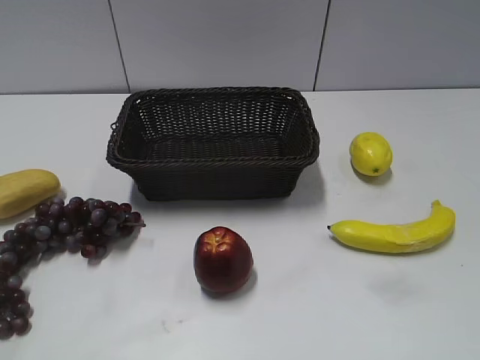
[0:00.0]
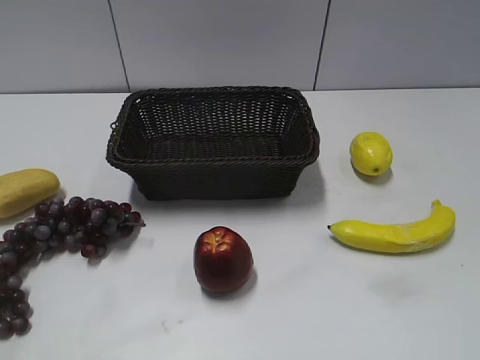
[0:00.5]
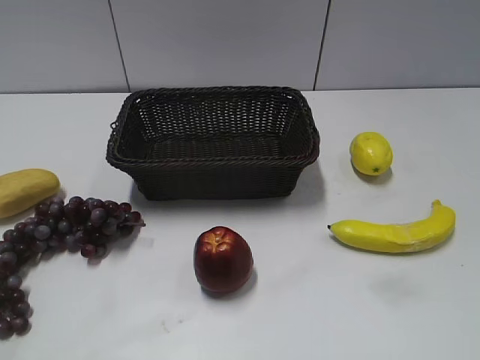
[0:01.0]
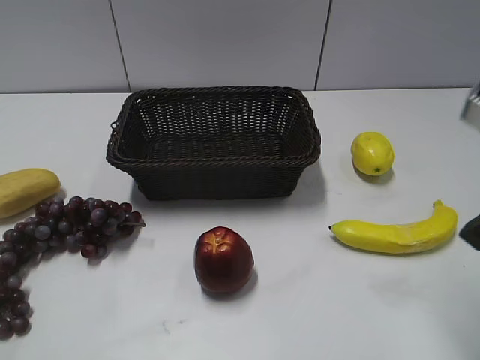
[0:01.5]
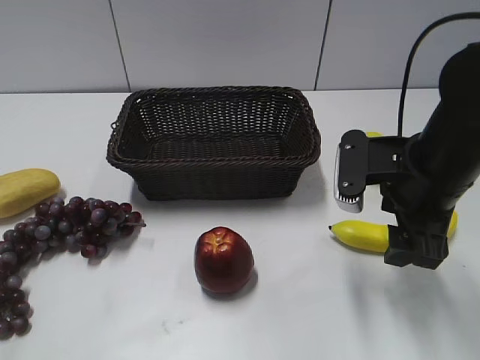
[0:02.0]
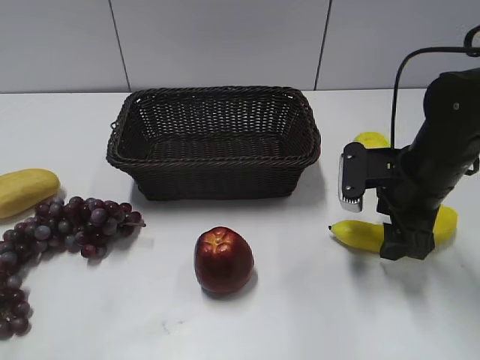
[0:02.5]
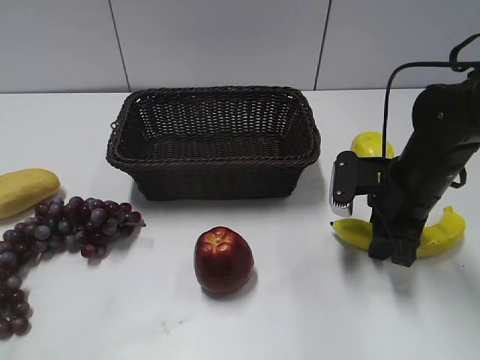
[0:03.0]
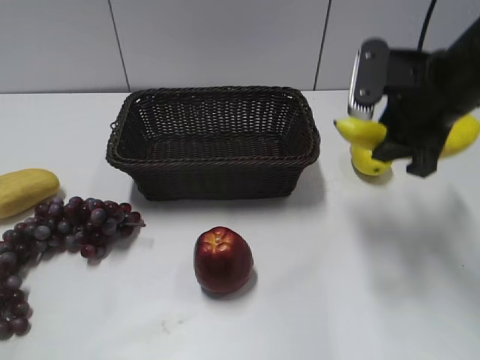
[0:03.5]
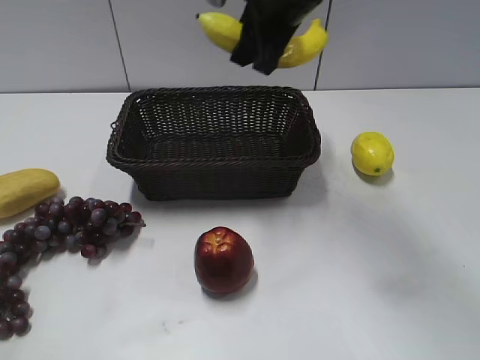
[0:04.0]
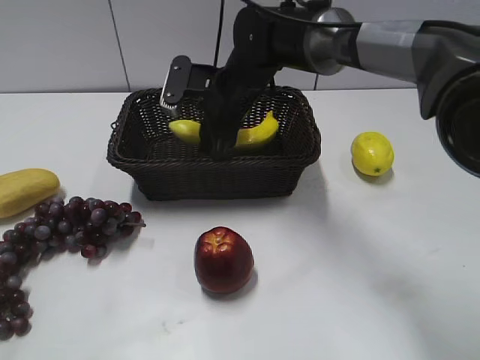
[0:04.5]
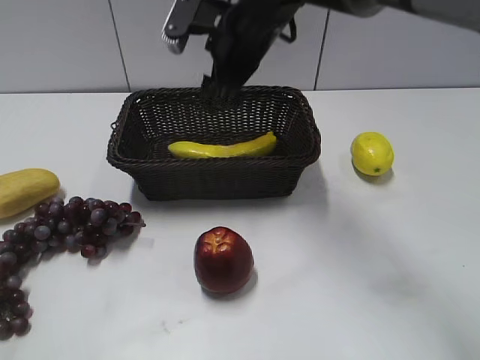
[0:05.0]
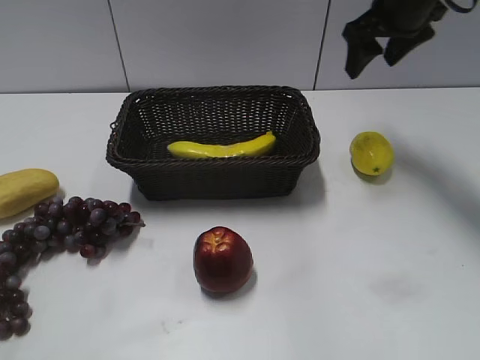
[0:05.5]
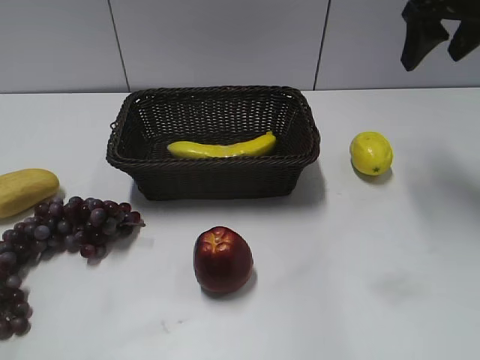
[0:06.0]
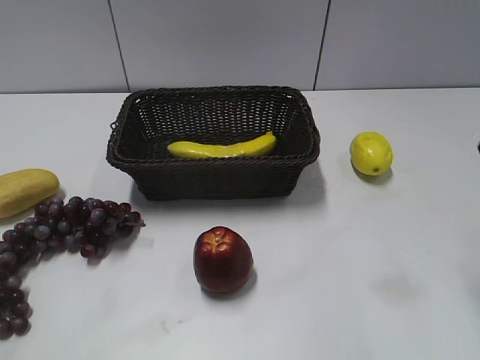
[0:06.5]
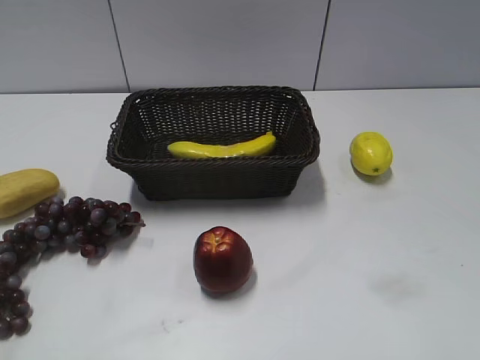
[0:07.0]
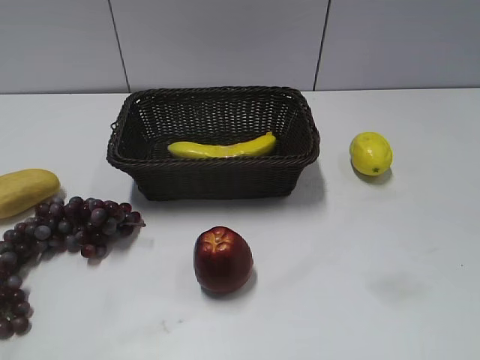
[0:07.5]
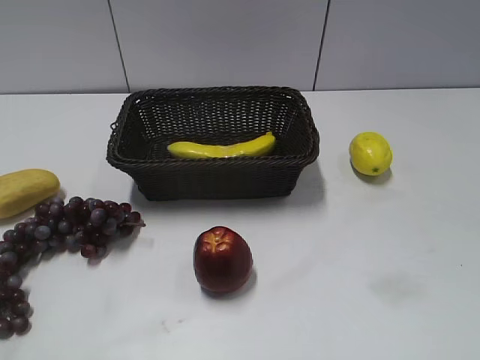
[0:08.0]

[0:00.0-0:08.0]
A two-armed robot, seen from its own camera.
Step, 0:01.5 to 0:02.5: Grasp the banana with right gripper.
Step, 0:03.0 to 0:04.5: Place the banana in the basket with right gripper.
0:02.0 to 0:04.0: The right gripper heads to the left, forward and upward, covering about 20 cm, and closes its fingers.
0:04.0 to 0:06.0: The right gripper shifts approximately 20 cm to the right, and opens its fingers.
0:06.0 to 0:08.0: The right gripper shifts some 40 cm backward.

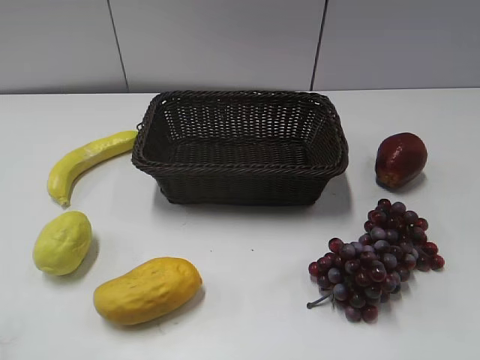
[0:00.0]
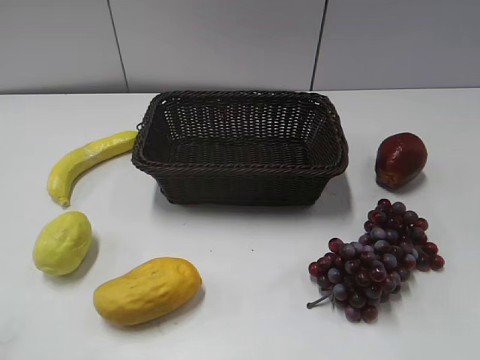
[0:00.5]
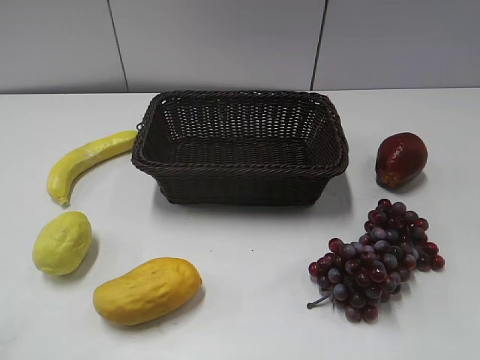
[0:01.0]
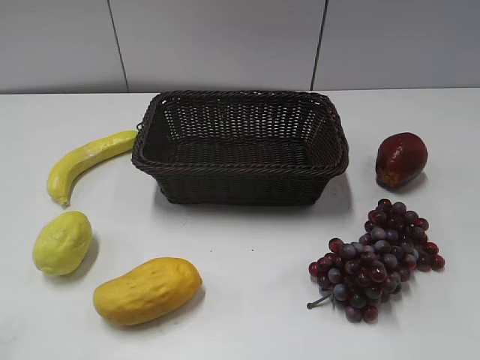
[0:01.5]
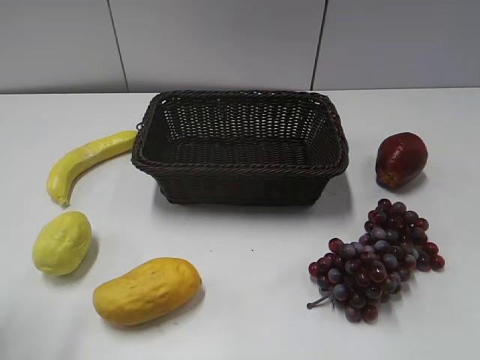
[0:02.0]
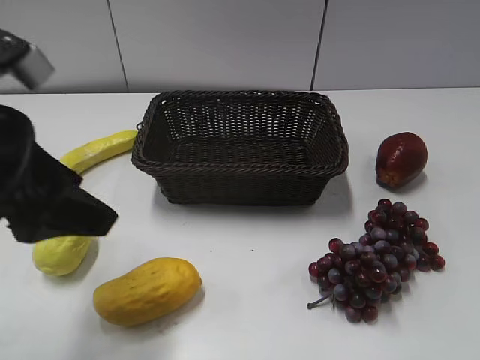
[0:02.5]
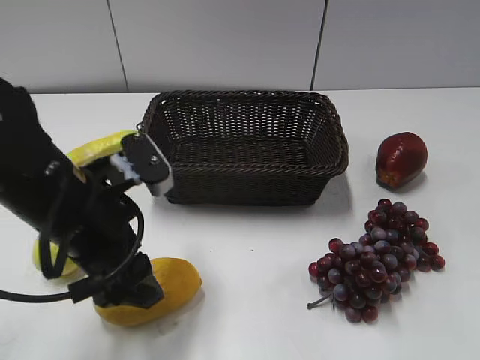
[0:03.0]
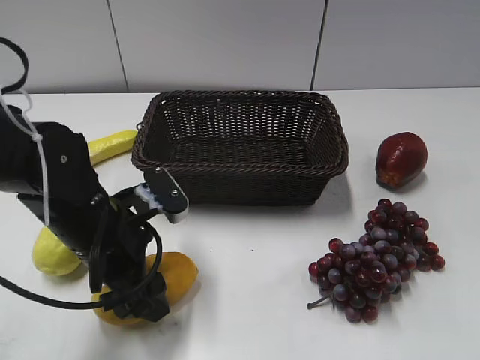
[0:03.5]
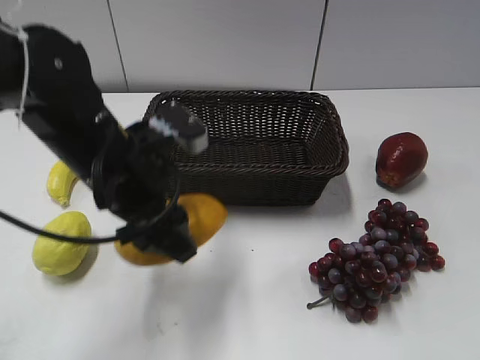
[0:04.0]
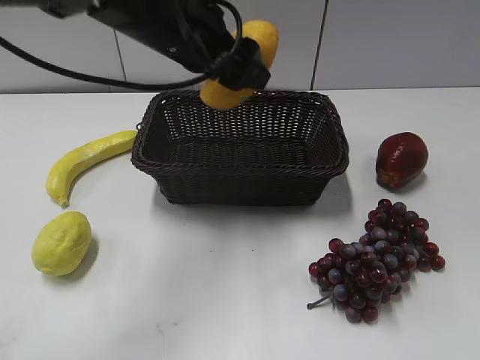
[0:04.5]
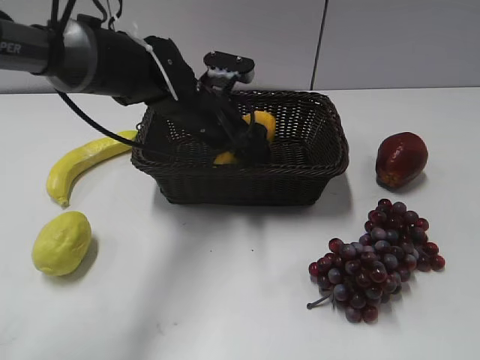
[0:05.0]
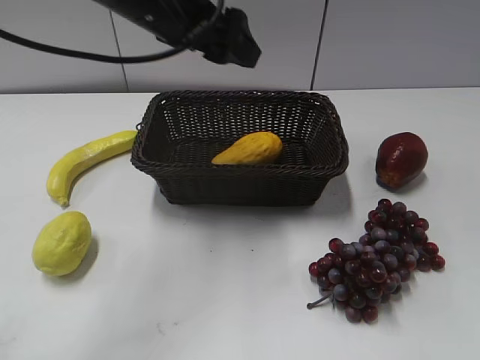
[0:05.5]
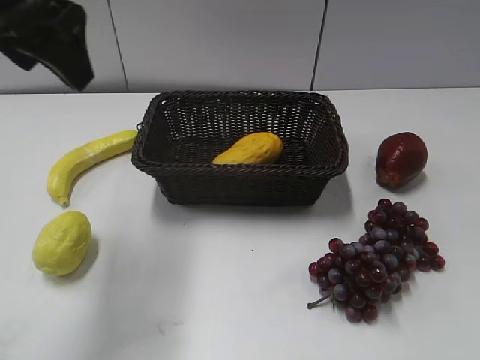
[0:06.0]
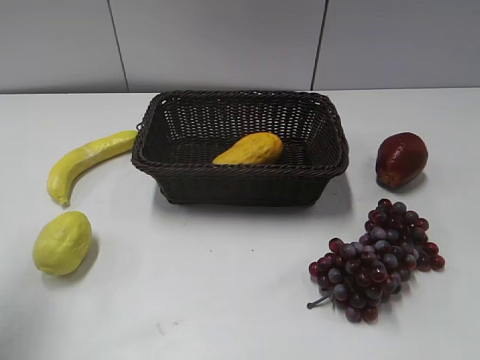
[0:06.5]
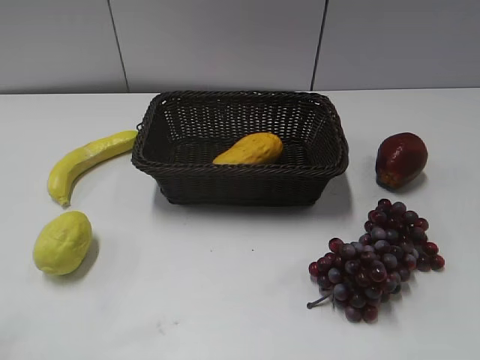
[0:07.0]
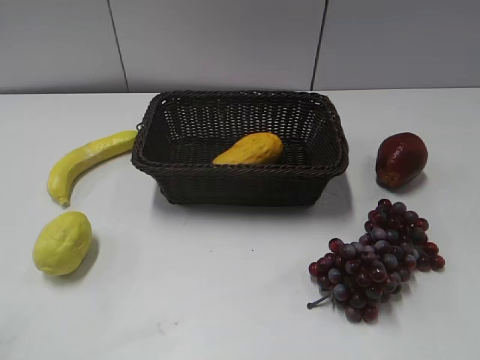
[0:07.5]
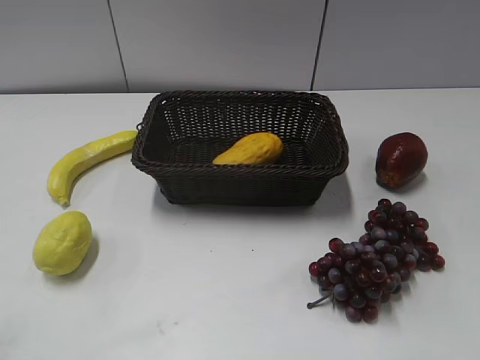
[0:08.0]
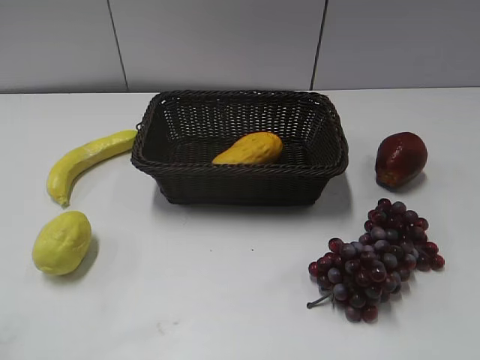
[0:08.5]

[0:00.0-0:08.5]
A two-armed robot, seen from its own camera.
Step, 0:02.5 to 0:03.5: Grasp the mango with left gripper.
Step, 0:04.0 to 0:05.0: Place the mango in the basket with left gripper.
0:02.0 to 0:04.0: The left gripper is displaced to the right, forward and downward by roughly 25 cm, and closes.
0:04.0 to 0:06.5: The left gripper moves to the left and upward, roughly 20 cm.
0:06.5 to 0:08.5: The left gripper goes about 20 cm backward.
